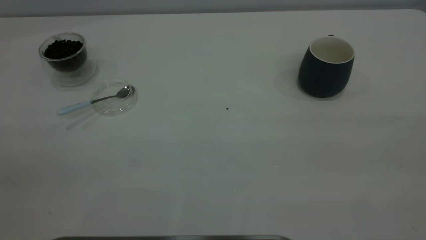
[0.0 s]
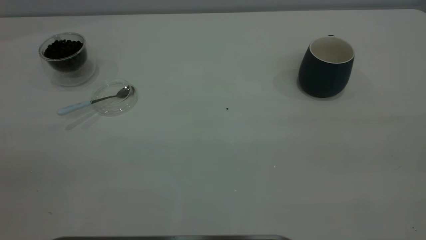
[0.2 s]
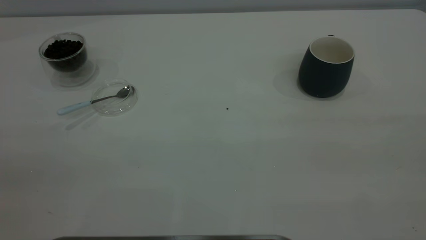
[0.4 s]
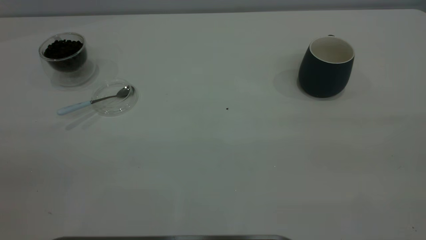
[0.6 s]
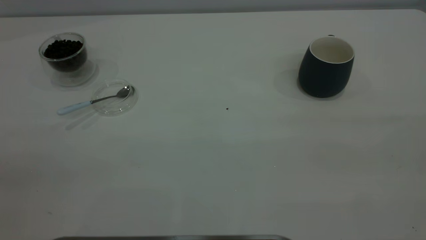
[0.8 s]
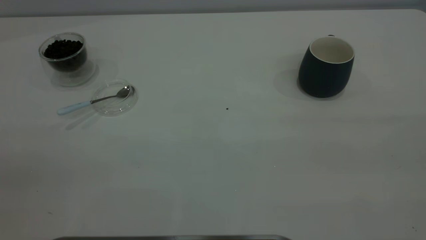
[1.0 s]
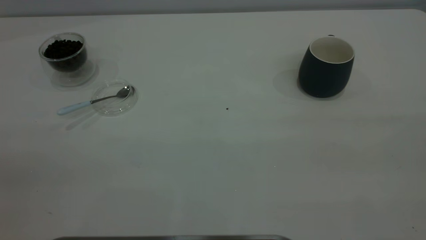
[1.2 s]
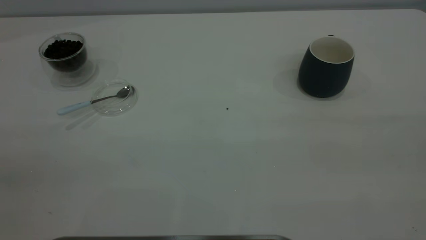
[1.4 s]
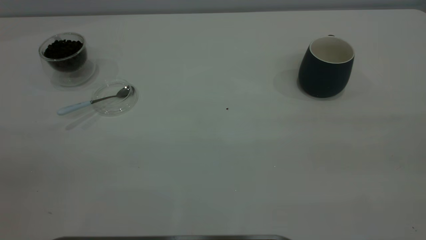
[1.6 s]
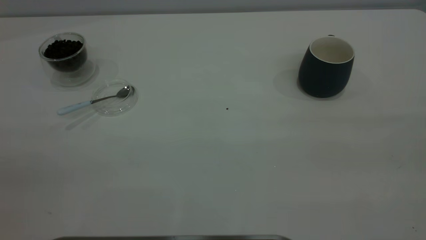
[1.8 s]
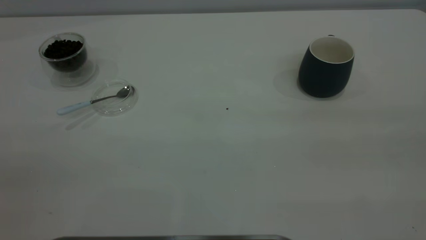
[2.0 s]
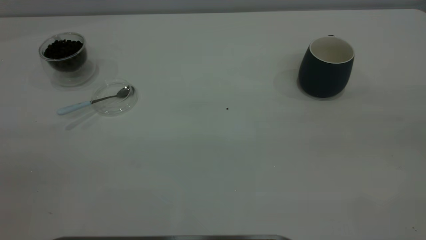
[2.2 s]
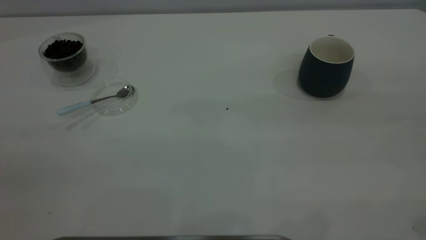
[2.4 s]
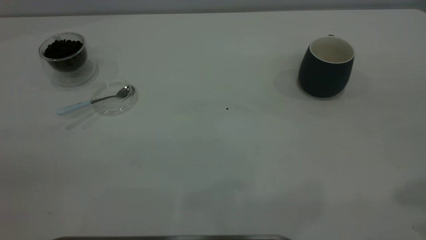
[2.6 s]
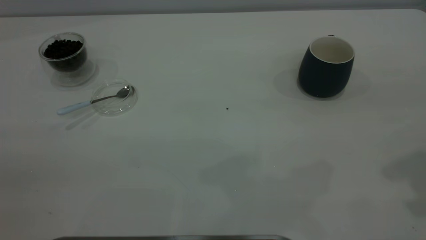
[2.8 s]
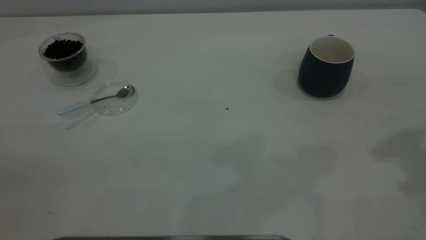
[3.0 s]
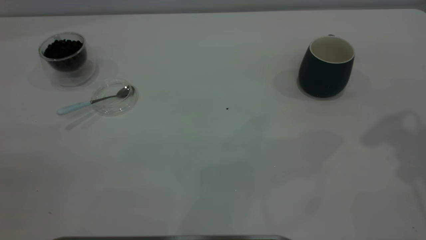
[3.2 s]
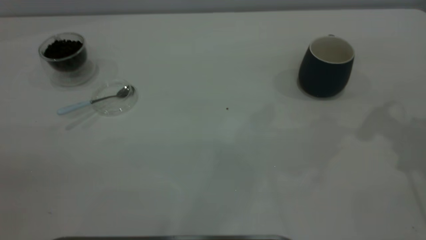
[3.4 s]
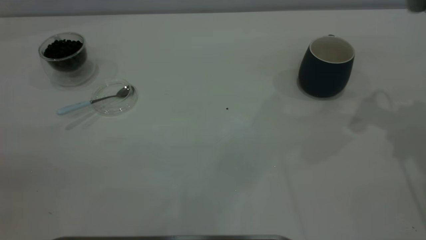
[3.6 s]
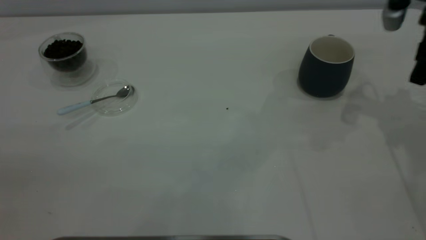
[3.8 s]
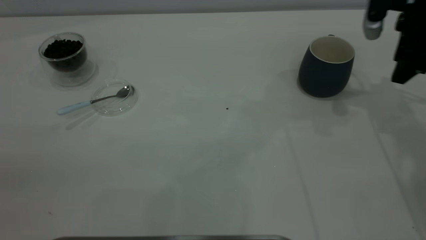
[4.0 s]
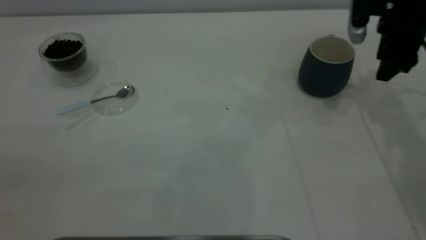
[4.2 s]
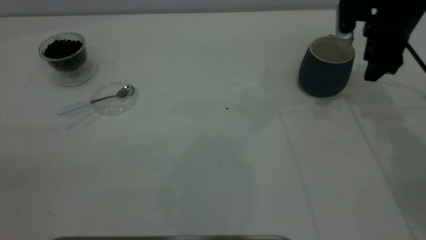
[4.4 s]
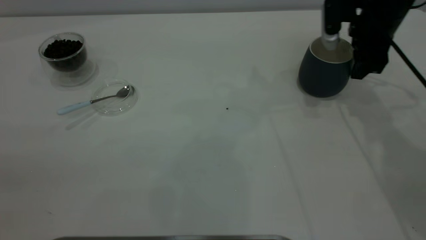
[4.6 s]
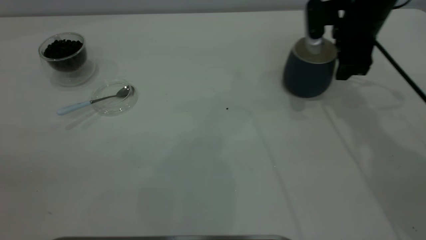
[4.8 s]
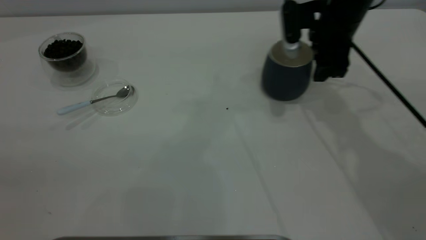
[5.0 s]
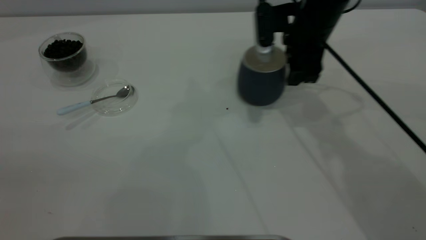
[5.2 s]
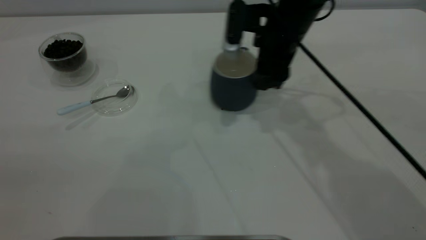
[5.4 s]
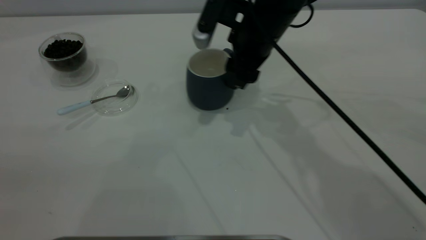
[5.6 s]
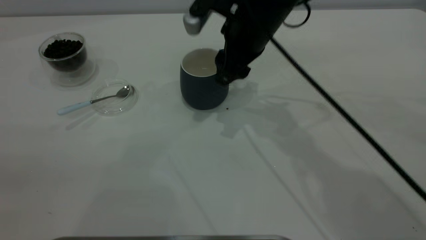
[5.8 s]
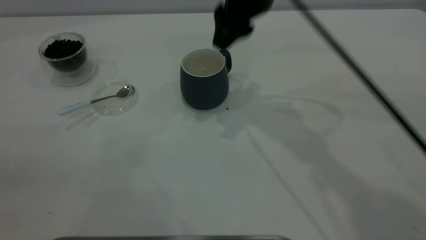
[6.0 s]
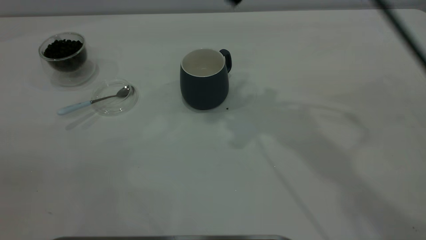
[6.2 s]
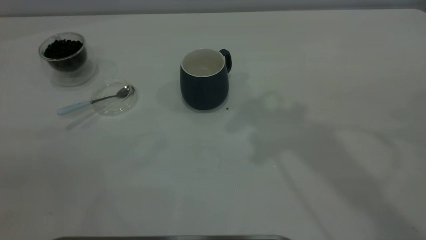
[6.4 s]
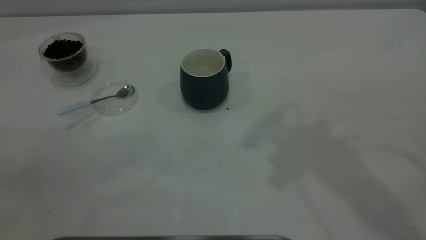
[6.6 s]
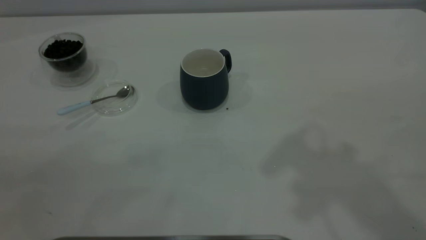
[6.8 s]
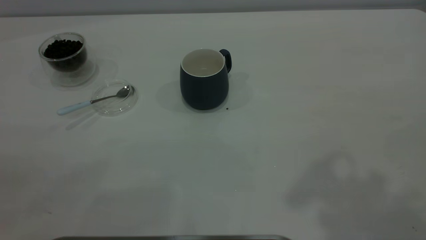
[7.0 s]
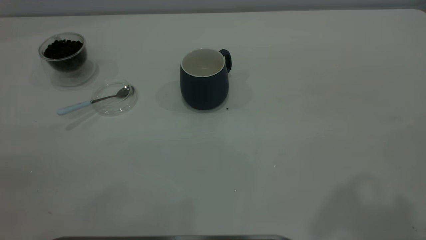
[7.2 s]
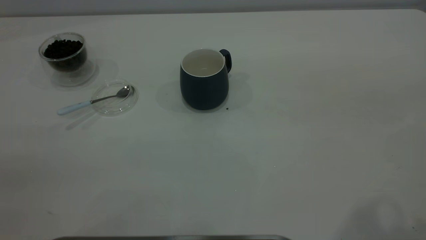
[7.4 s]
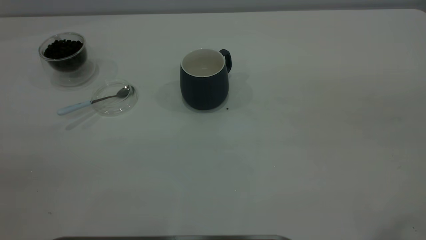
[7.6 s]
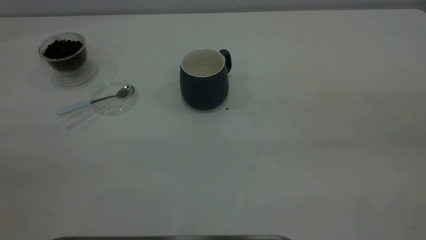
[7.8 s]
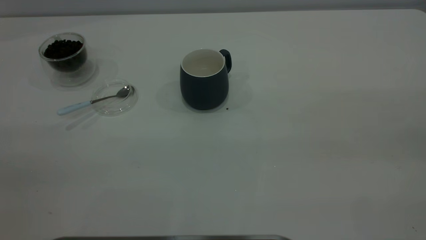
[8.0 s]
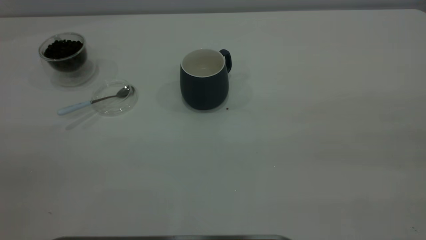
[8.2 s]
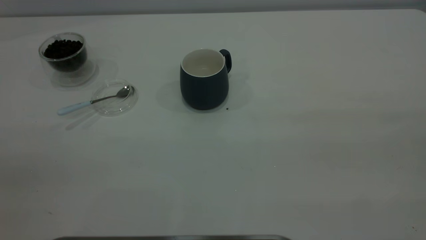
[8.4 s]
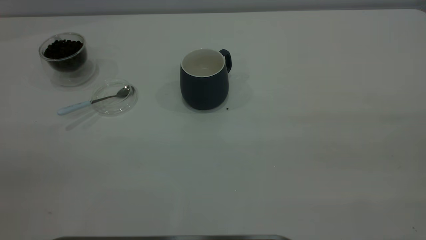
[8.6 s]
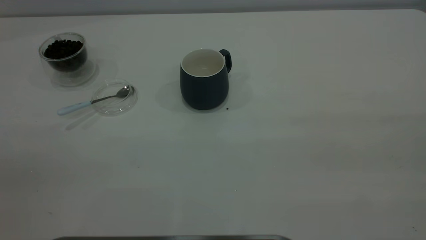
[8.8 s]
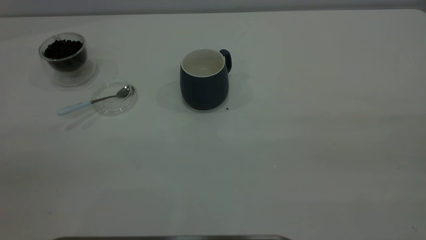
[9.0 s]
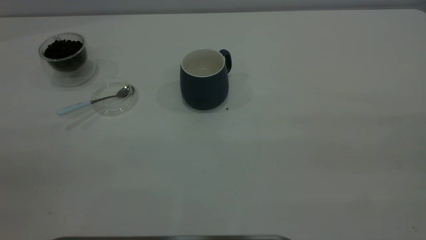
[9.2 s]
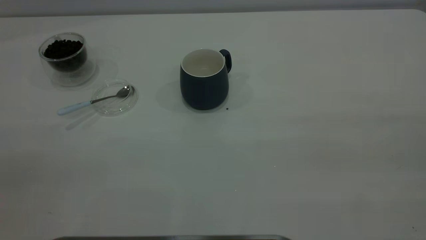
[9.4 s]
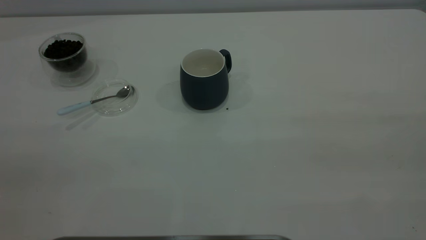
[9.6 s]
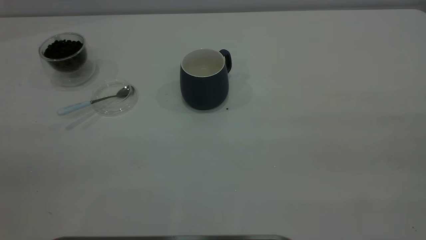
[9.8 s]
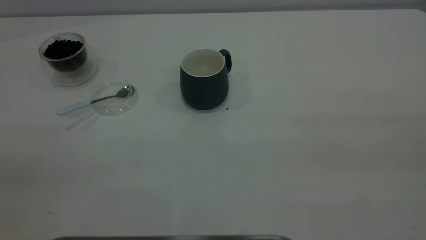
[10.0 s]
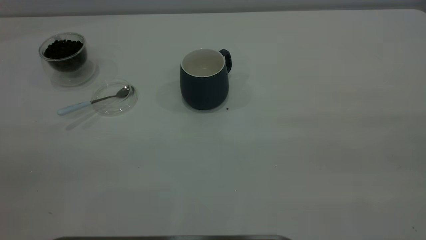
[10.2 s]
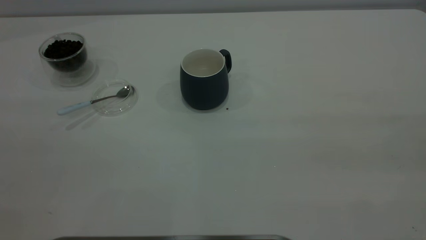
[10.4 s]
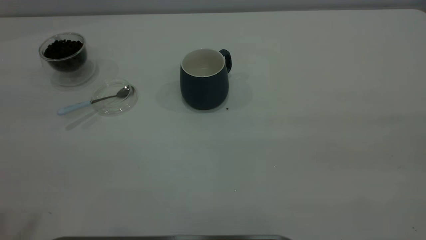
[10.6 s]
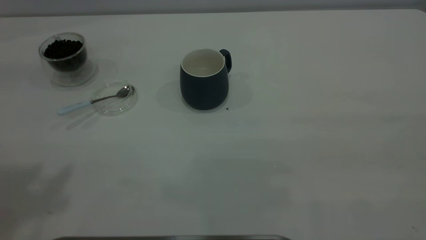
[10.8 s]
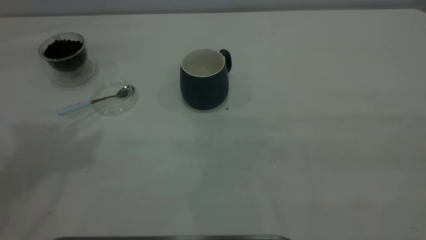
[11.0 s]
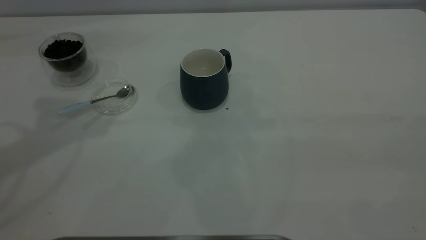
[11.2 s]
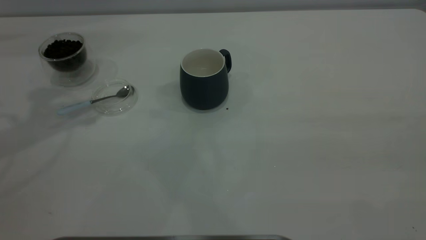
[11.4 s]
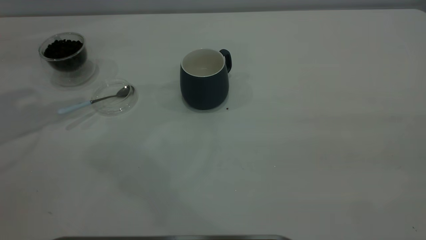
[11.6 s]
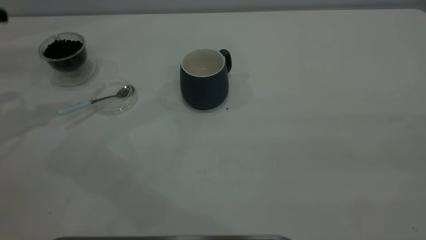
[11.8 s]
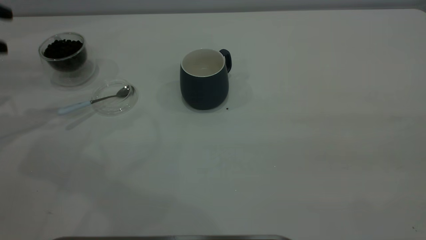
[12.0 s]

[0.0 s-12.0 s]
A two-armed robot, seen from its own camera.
Task of the whole recording: the right gripper place the grey cup in the center of the table, the left gripper take the blue spoon from the cup lid and scoop out the coffee beans from the coffee cup and put them into the grey cup, the left gripper put the spoon back into the cup lid.
Step, 0.0 to 6.0 s: Move the cup to the center of view.
0.0 to 1.6 s: Neither gripper changes place.
3.0 to 4.4 s: The right gripper shifts about 25 cm forward and downward.
4.4 to 6.0 s: The right gripper goes about 25 cm to the left and upward.
6.0 to 7.6 s: The right gripper shifts approximately 35 cm backward, to the right and upward.

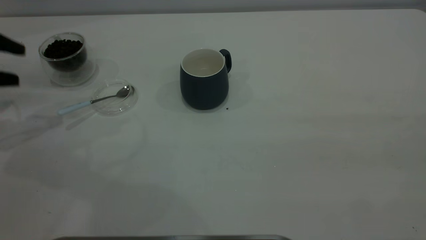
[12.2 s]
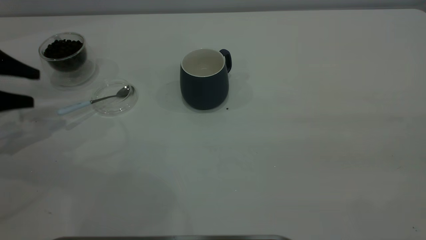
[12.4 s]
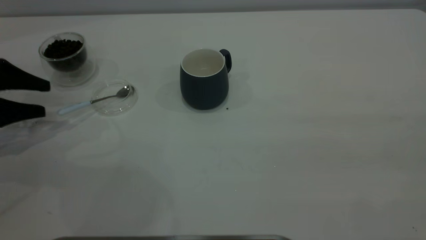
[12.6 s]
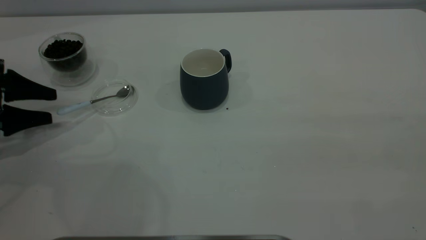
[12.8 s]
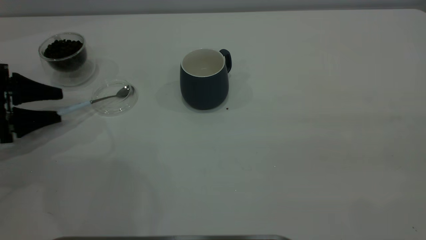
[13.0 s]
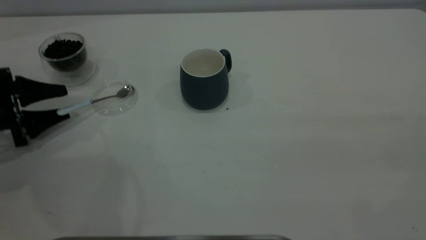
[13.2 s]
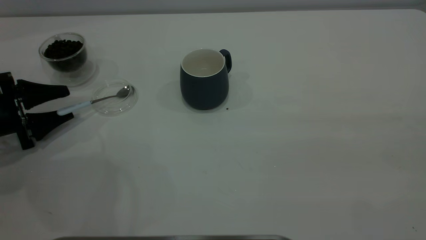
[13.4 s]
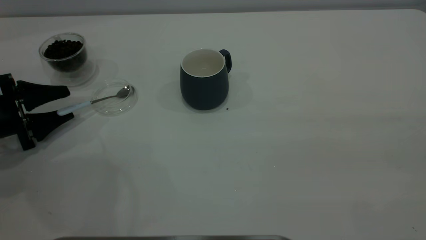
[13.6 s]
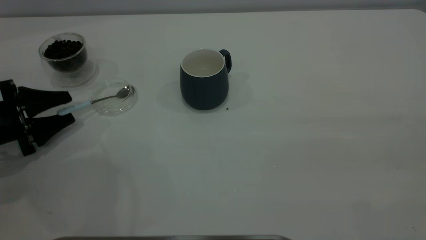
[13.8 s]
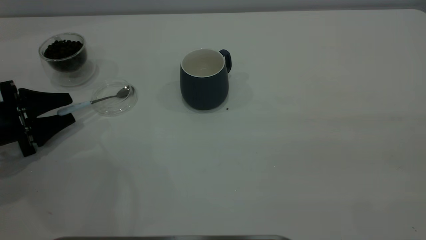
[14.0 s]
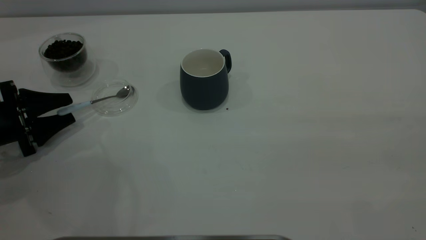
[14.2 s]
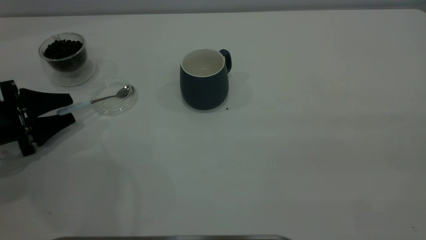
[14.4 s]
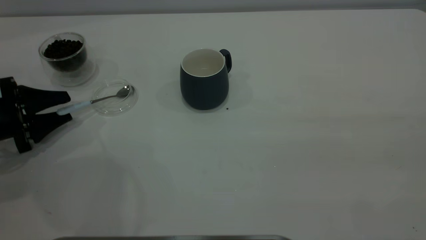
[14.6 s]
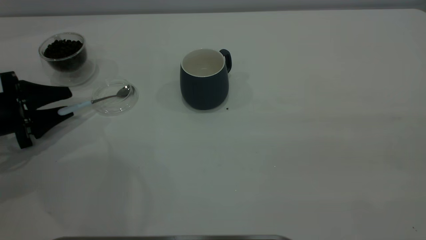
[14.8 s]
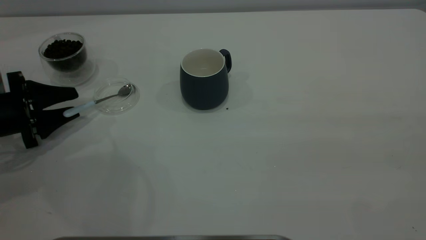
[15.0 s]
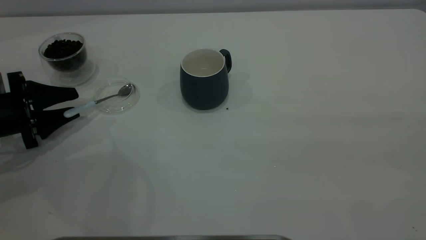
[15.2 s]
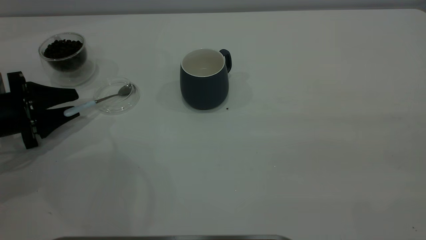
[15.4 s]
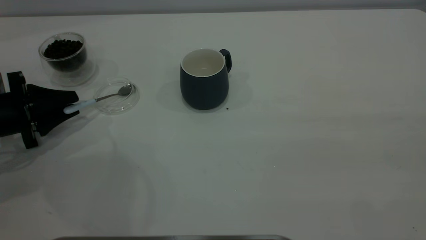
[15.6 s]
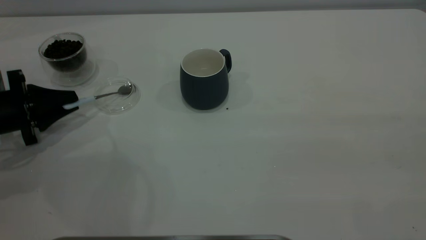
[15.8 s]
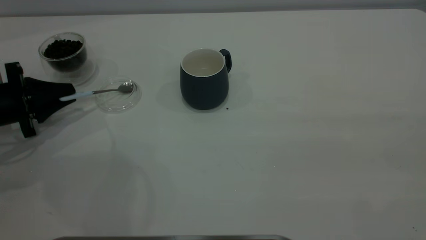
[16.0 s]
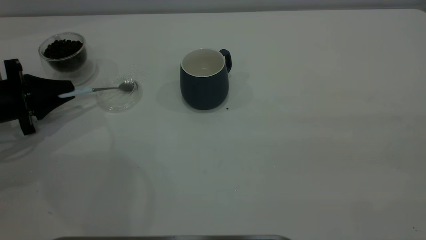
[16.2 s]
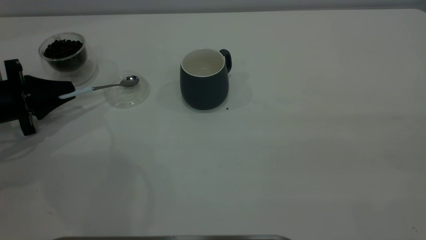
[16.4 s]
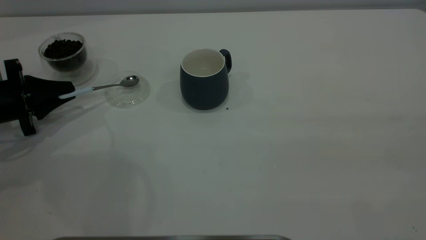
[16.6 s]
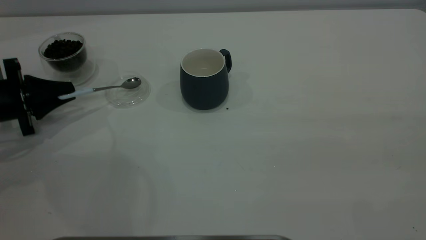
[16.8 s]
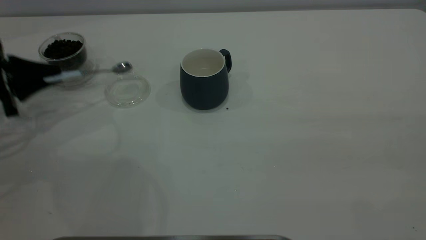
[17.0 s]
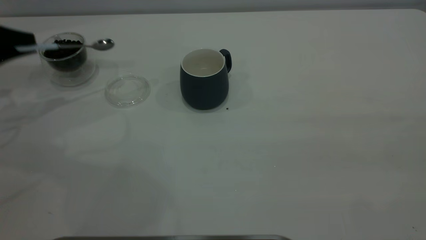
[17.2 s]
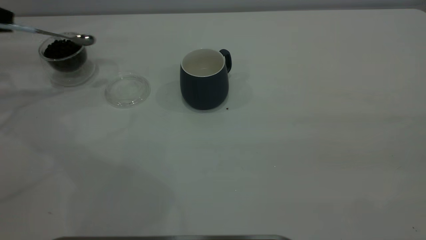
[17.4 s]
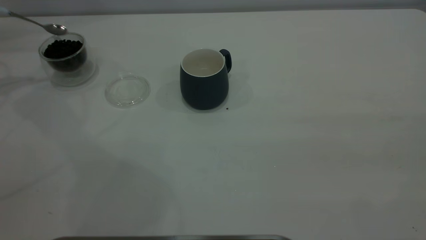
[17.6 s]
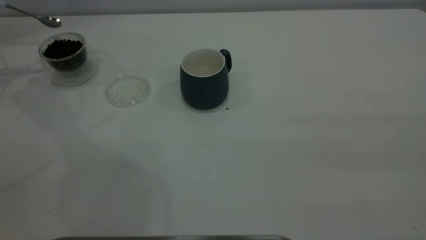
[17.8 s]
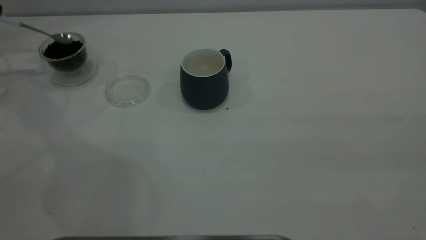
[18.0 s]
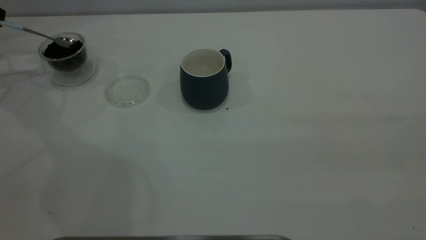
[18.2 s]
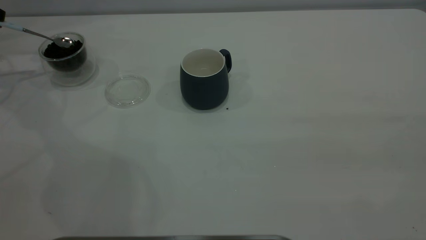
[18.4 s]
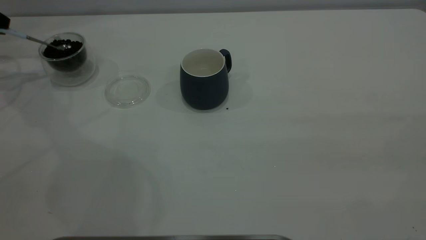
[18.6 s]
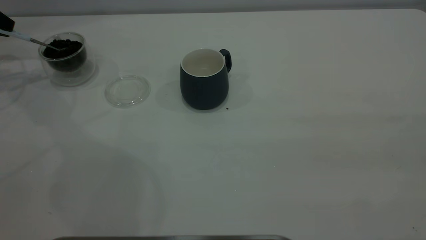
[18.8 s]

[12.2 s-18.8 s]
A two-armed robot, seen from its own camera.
Task of the whole recording: the right gripper place the grey cup in the center of the table, the left gripper take the blue spoon from the cup lid and scoop out the coffee beans from the coffee cup and put them into the grey cup, the left gripper put the spoon back into the cup lid.
Step, 12.2 to 17.0 s: Pick up the spoon.
12.2 to 13.8 s: The left gripper goes about 15 cm downward.
13.8 to 15.4 s: There are only small adjustments of the grippers.
15.4 to 17.2 s: The left gripper moves upward, forward and to the left, about 15 cm, and closes its fingers.
17.2 to 18.8 s: The left gripper heads forward and to the left, covering approximately 10 cm.
